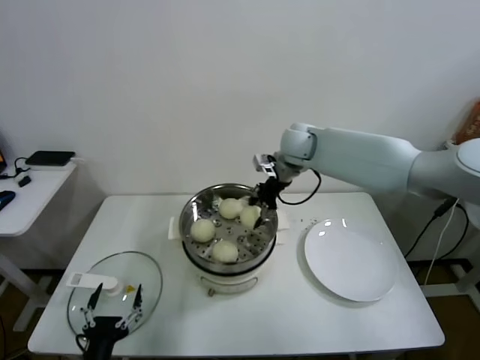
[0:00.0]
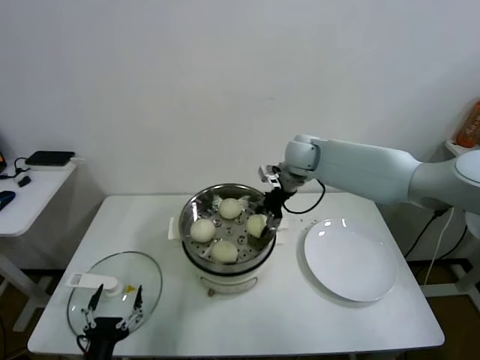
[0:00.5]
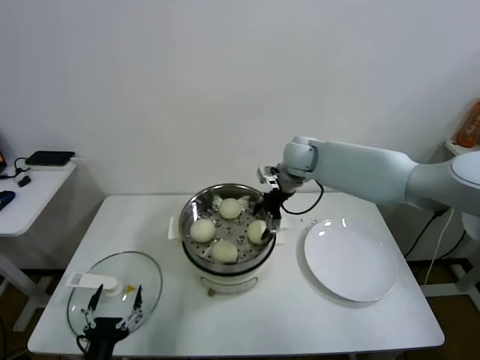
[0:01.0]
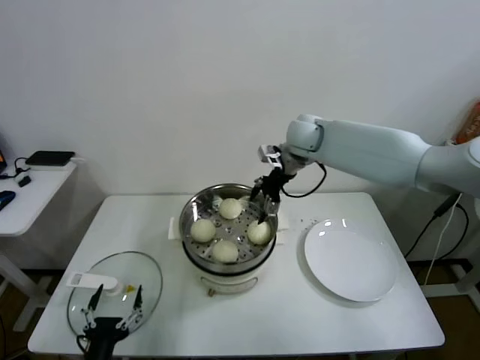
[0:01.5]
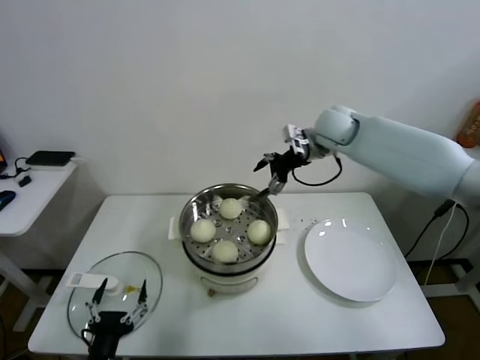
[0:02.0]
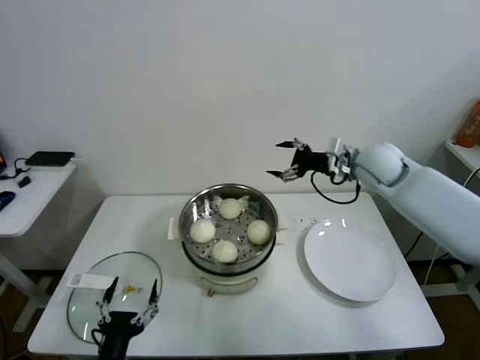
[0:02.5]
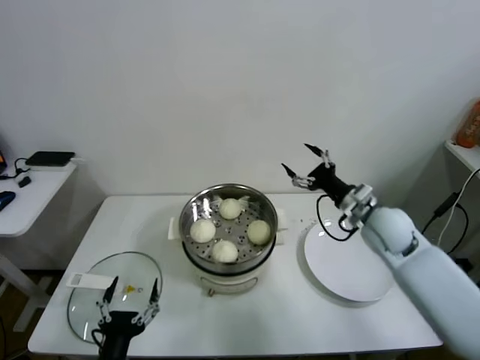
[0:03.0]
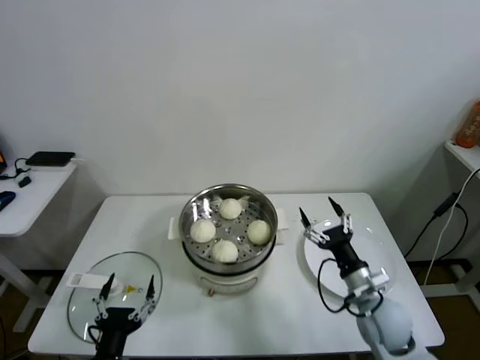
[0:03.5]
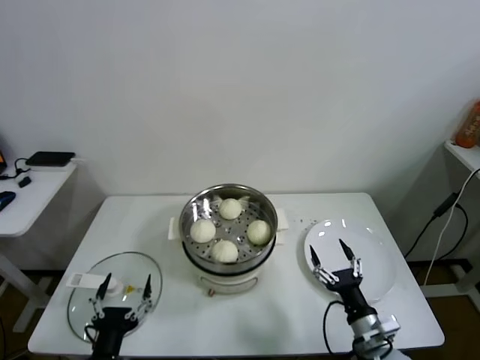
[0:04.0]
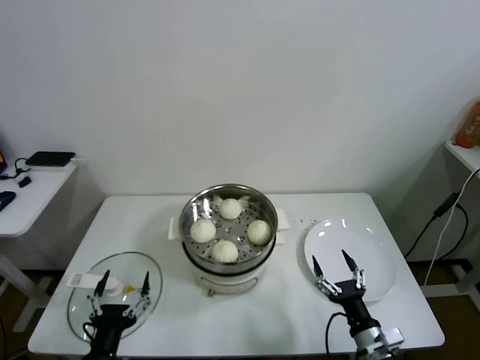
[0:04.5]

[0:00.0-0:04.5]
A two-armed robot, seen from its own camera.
Task of the whole recording: take steamed baozi put them in steamer.
0:00.0 to 0:02.0: The right gripper heads to the right, covering some 5 cm, and opens up.
0:02.0 to 0:04.5: The right gripper heads backward and downward, covering roughly 50 cm.

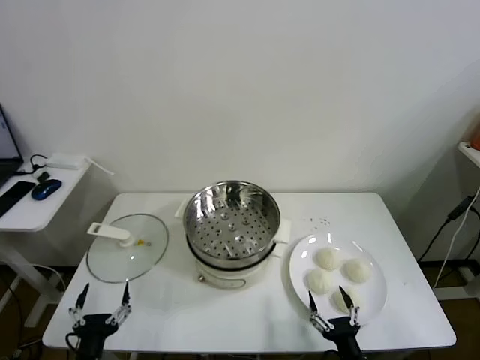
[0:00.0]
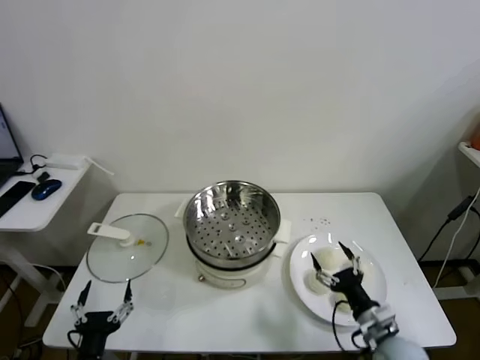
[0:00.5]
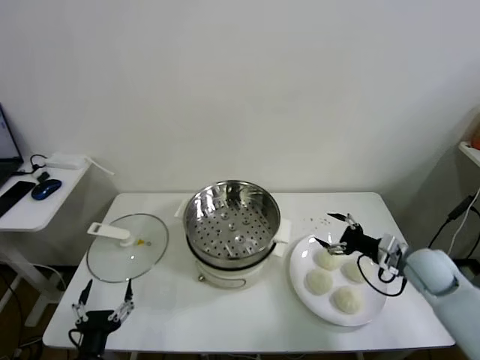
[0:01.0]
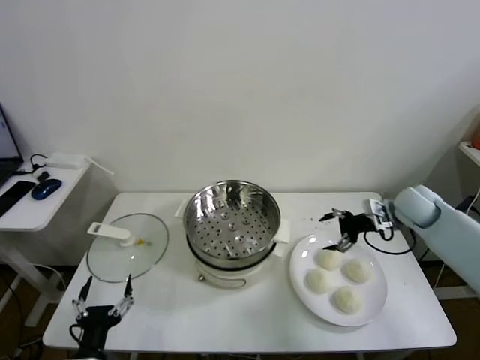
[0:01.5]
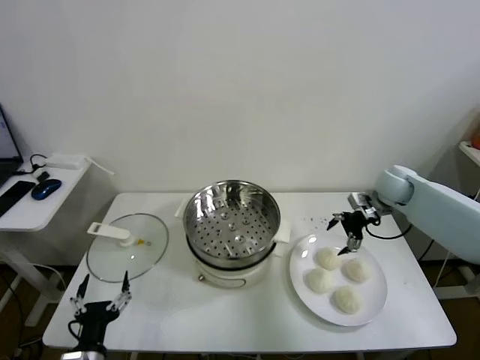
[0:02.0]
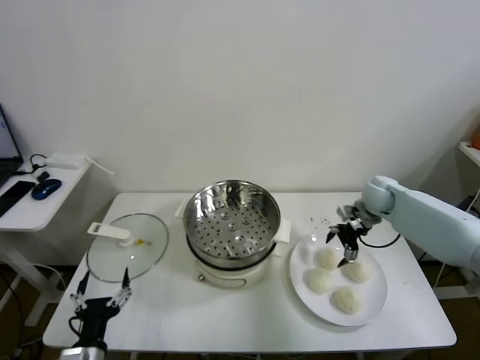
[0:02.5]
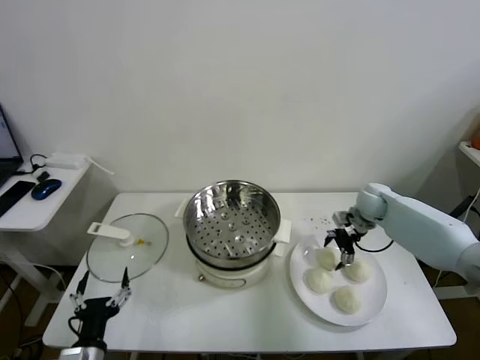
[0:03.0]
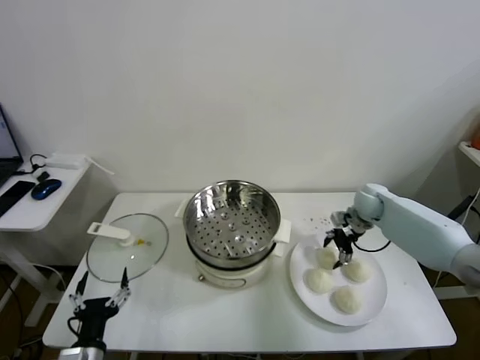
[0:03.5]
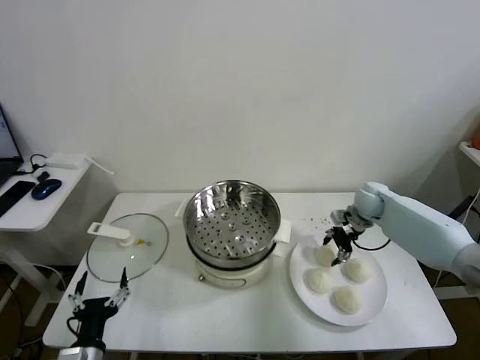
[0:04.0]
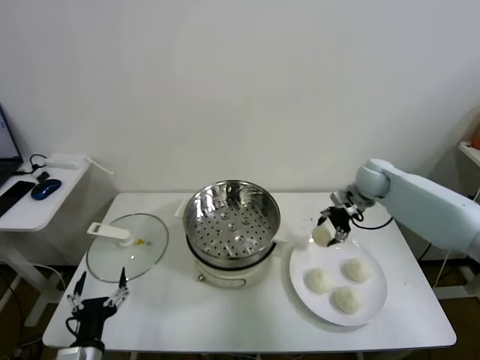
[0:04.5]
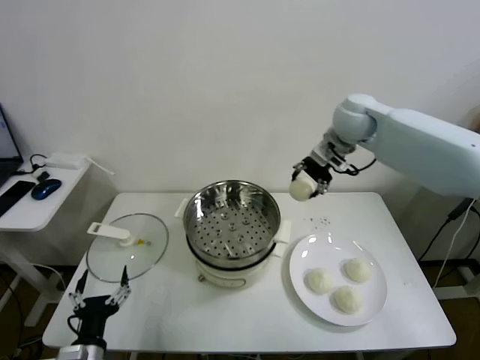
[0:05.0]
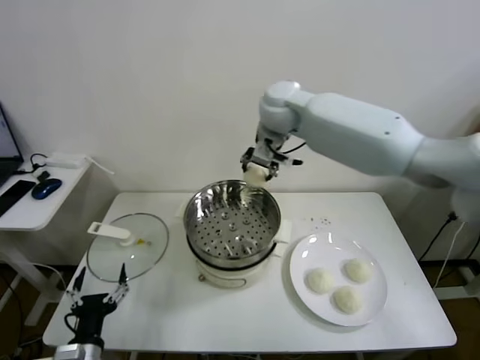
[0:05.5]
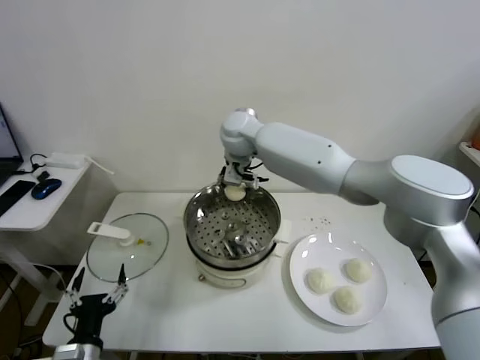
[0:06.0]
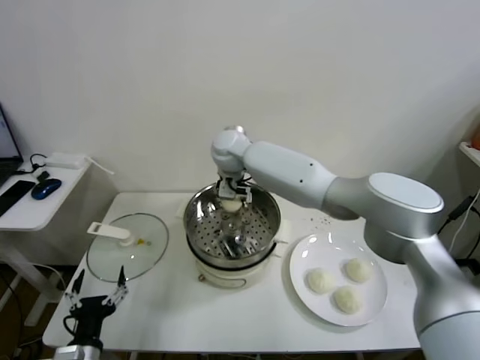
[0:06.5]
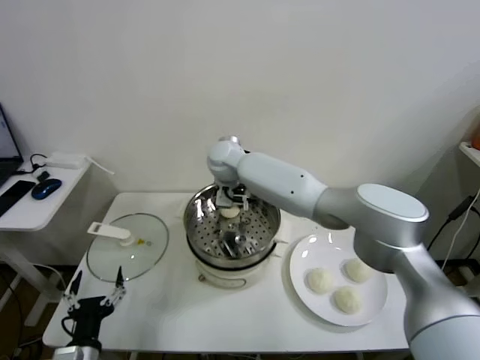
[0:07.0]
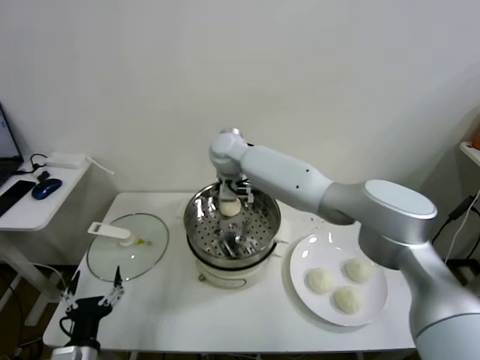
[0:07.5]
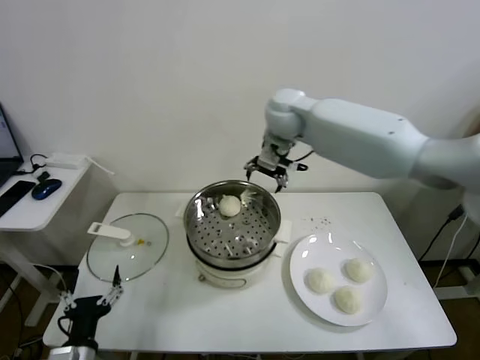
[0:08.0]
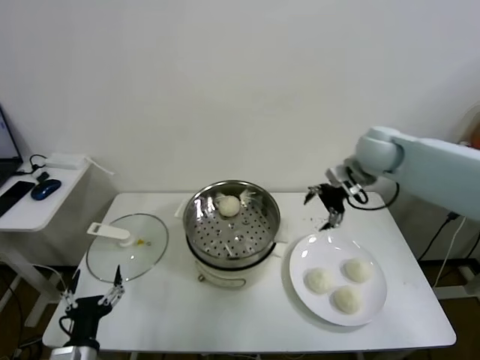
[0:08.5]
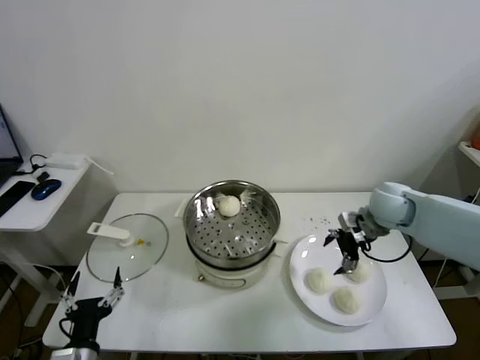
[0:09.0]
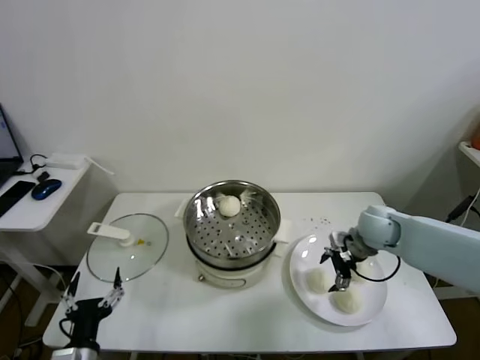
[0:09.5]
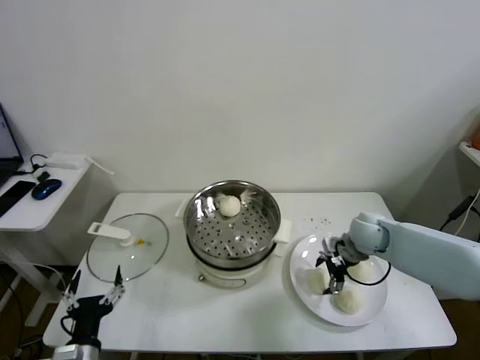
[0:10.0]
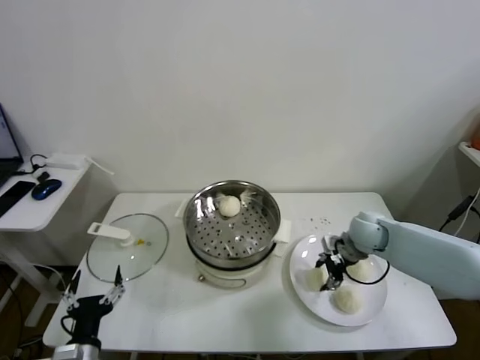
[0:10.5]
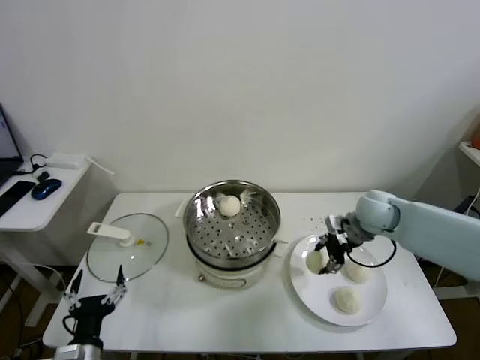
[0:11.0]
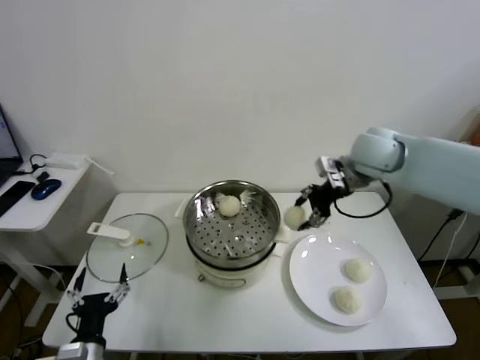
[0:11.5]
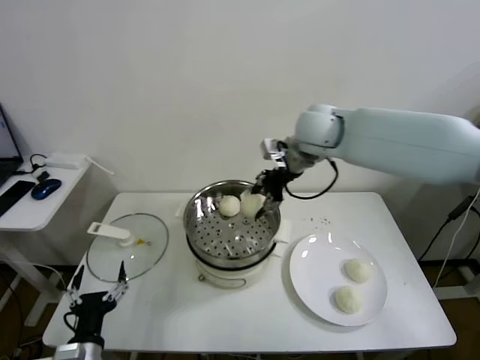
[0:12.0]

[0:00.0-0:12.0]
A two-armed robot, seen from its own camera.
Task of the whole recording: take steamed baozi put them in steamer.
Step, 0:00.0 to 0:04.0: Grasp the baozi in the plate with right gripper.
Step, 0:04.5 to 0:07.5: Place the baozi on the steamer with right gripper.
Step, 0:08.0 to 0:10.0: Grasp the baozi in the plate with right gripper.
0:02.0 to 0:04.0: The right gripper moves downward, about 5 cm, and closes.
0:04.0 to 0:06.0: The right gripper travels to the left and upward by roughly 40 cm.
0:06.0 to 0:08.0: The right gripper travels to the right and upward by some 10 cm, and opens its fingers.
0:08.0 to 0:10.0: The right gripper goes approximately 35 cm downward, to the right and backward.
0:10.0 to 0:12.0: The right gripper travels upward and to the left by approximately 30 cm, and closes its fingers.

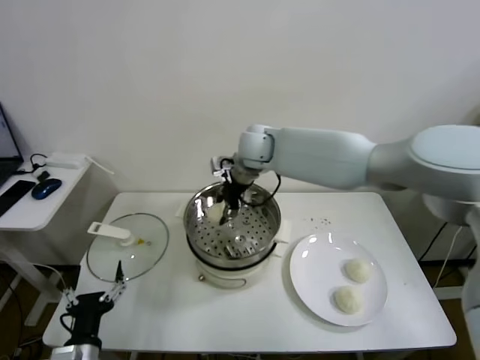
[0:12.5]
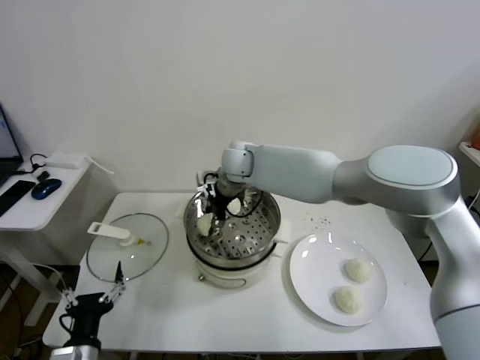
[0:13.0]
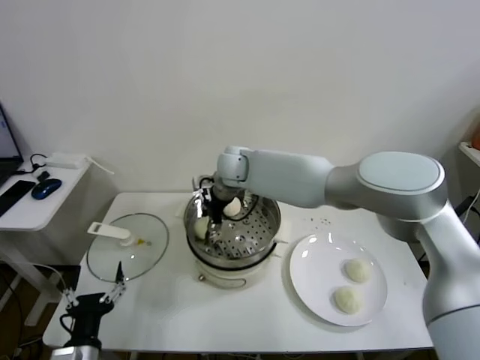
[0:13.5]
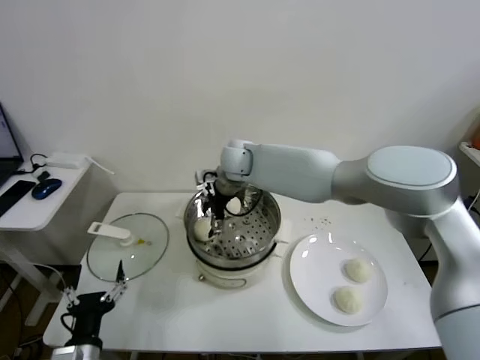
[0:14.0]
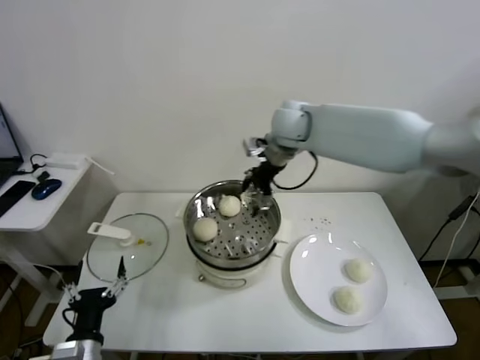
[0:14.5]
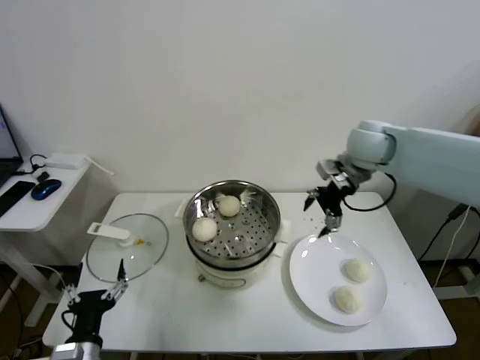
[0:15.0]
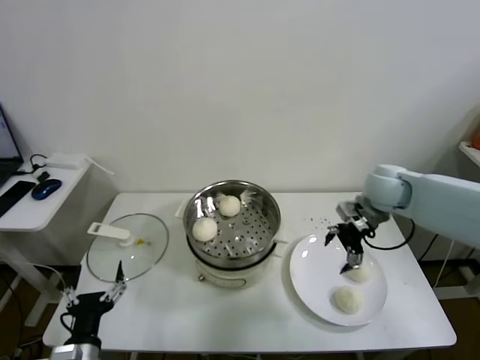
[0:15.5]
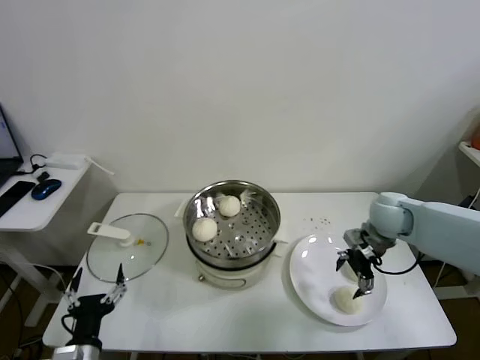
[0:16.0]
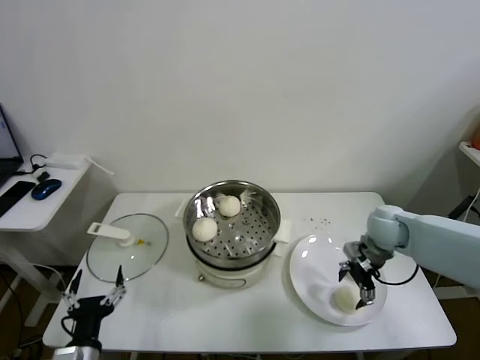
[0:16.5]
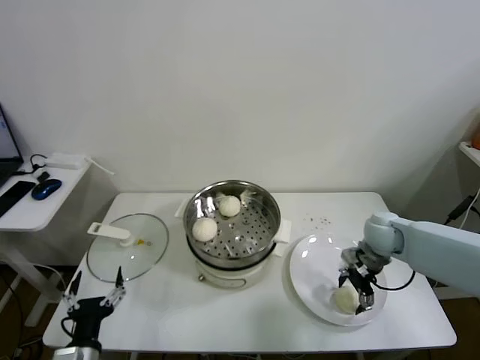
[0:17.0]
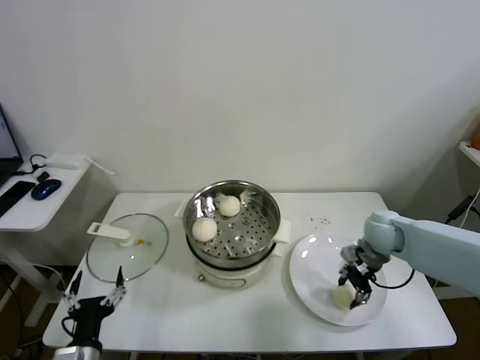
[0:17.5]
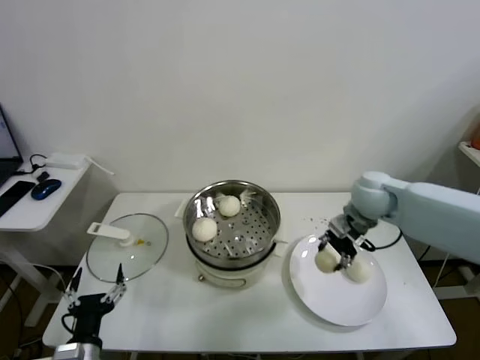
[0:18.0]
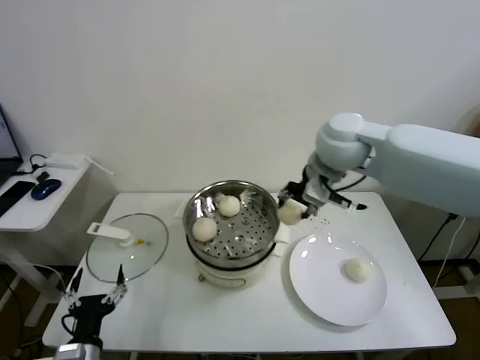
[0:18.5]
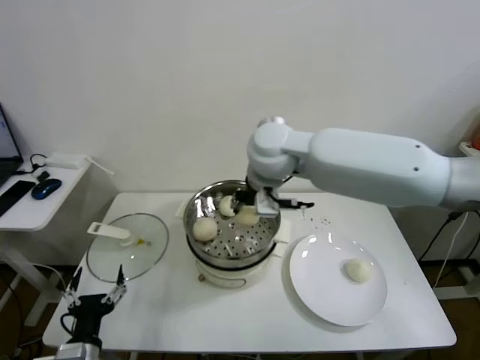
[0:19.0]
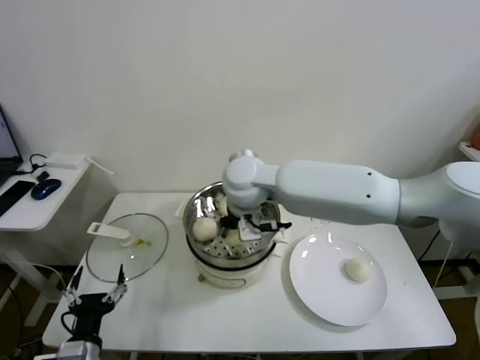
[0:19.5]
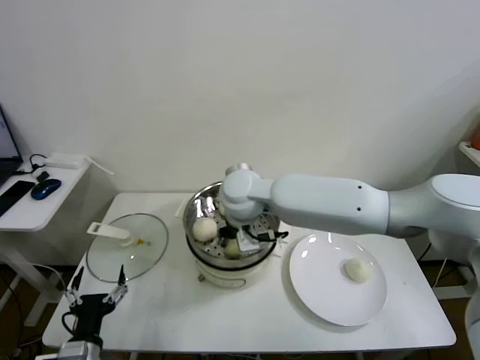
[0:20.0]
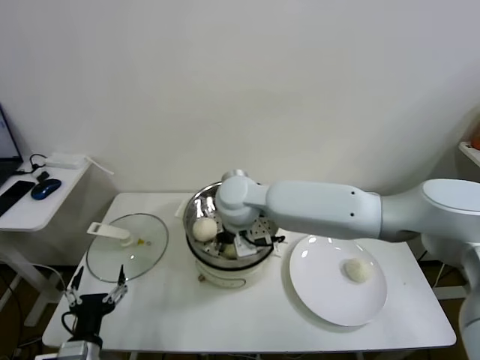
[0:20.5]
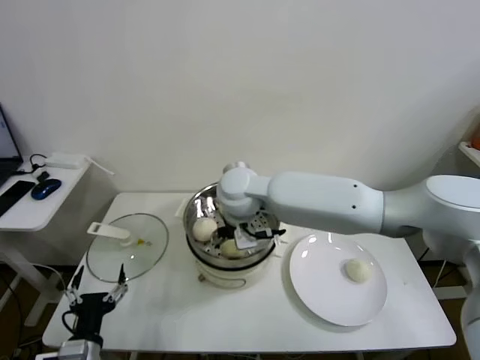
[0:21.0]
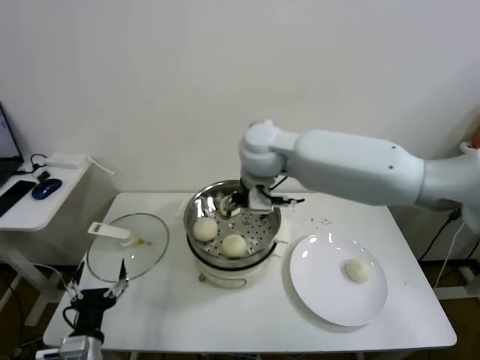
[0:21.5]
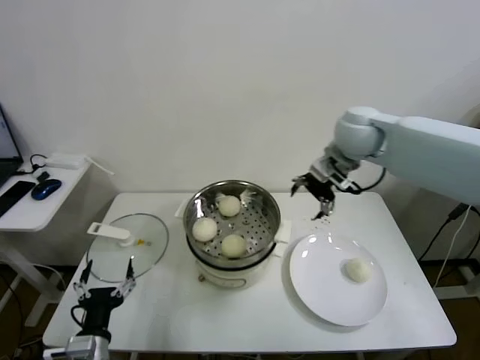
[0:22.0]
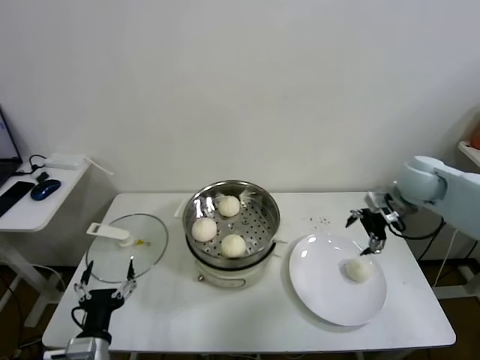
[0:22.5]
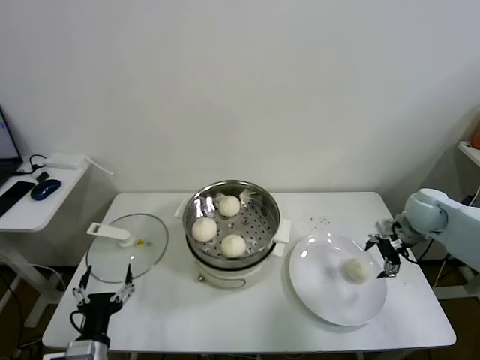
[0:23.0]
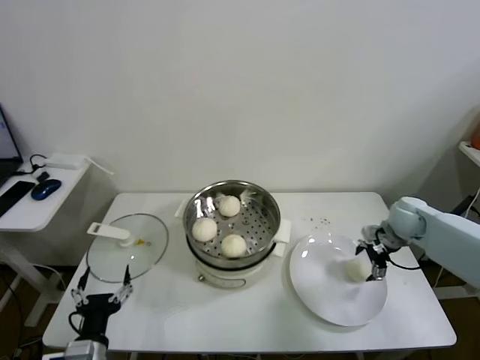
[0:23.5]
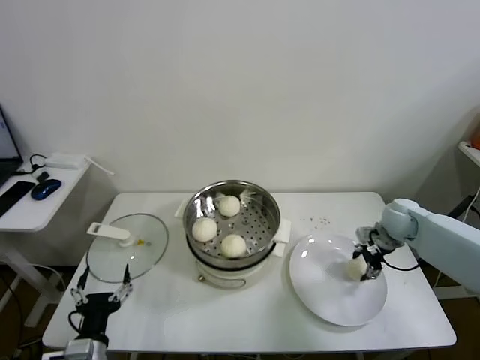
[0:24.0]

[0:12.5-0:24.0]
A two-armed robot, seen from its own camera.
Task of the whole recording: take steamed baozi put them in steamer.
Step, 0:14.5 to 0:17.0: Grasp the baozi in the plate with right gripper.
Step, 0:17.5 to 0:20.5: Place the baozi on the steamer with right gripper.
0:12.5 to 0:14.5: The right gripper goes about 5 cm to the right, and opens up.
0:14.5 to 0:16.5: The right gripper goes roughly 35 cm to the right, downward and backward.
0:16.5 to 0:18.5: The right gripper heads upward and to the left, covering some 30 cm, and closes up.
0:18.5 to 0:20.0: The right gripper heads to the left and downward, covering roughly 20 cm.
0:20.0 to 0:22.0: The right gripper travels to the right and upward by approximately 25 cm, and opens.
0:22.0 to 0:24.0: The right gripper is displaced downward and to the right by approximately 30 cm, and closes up.
